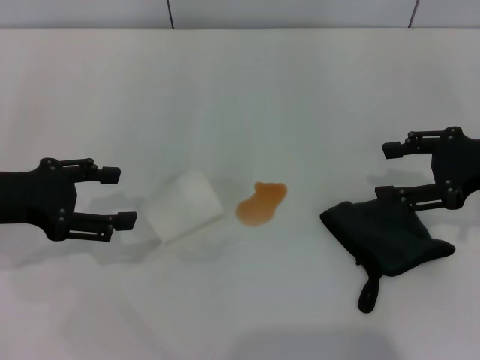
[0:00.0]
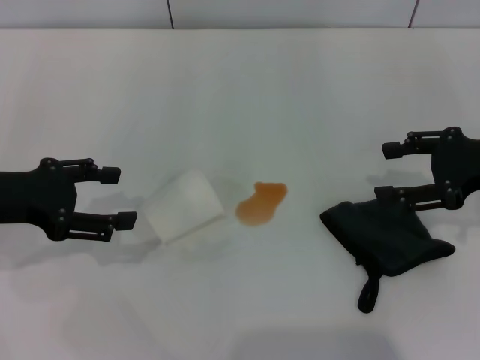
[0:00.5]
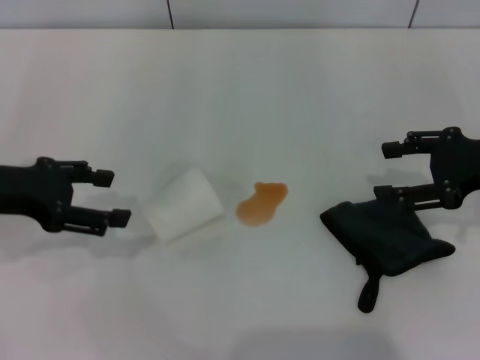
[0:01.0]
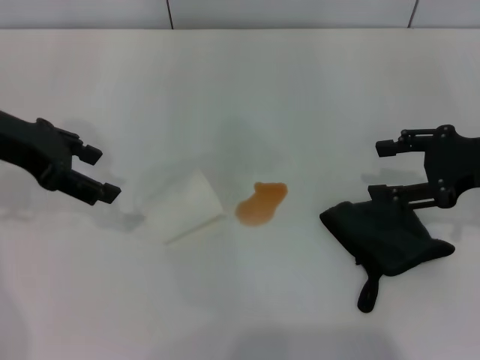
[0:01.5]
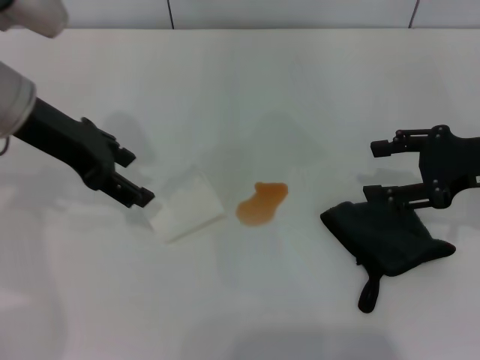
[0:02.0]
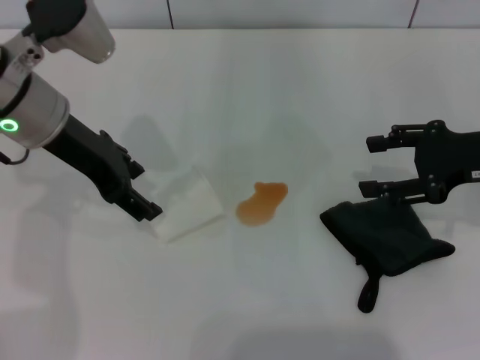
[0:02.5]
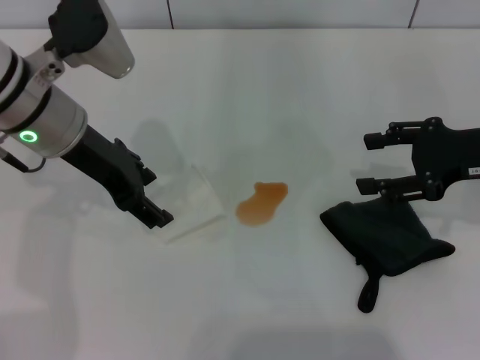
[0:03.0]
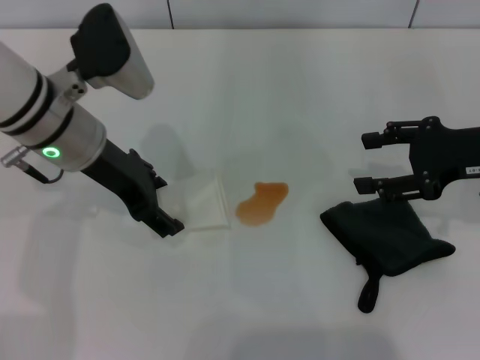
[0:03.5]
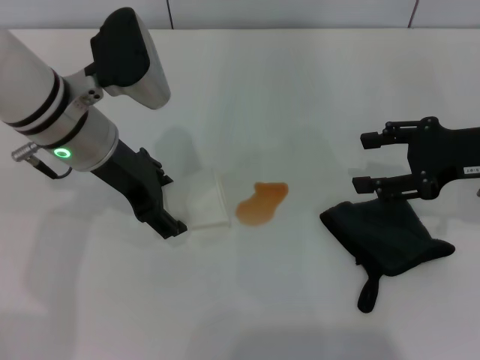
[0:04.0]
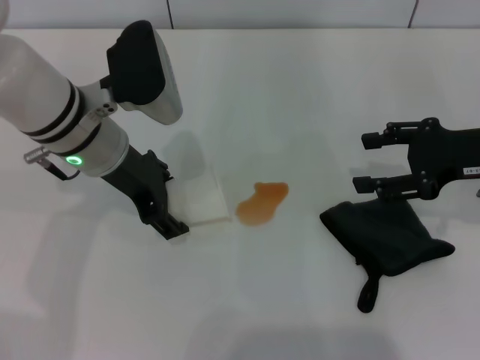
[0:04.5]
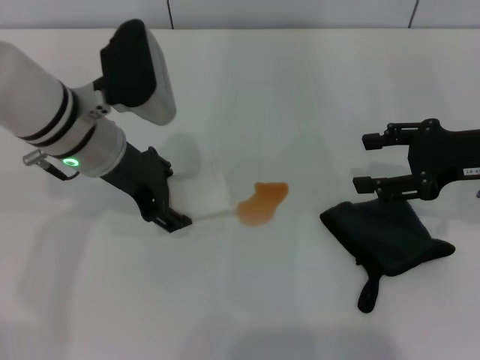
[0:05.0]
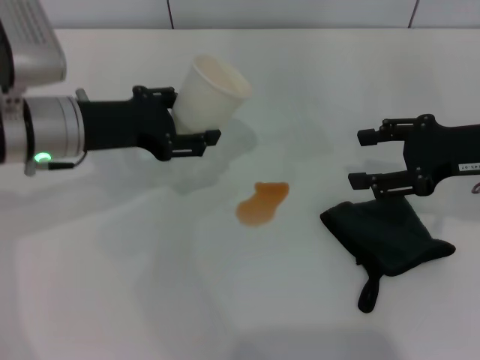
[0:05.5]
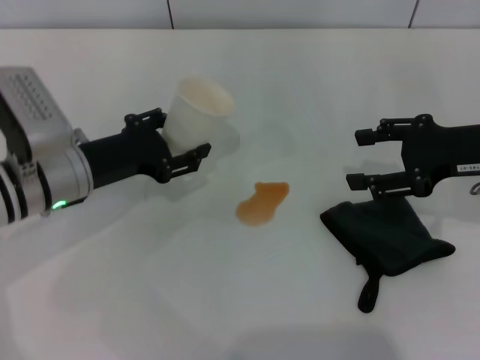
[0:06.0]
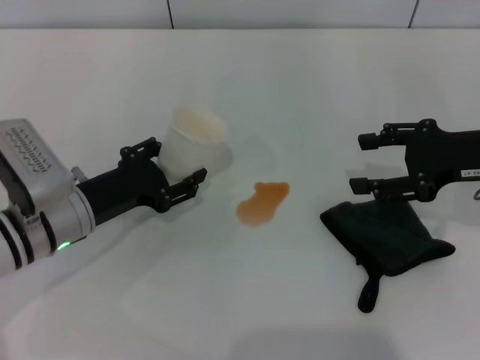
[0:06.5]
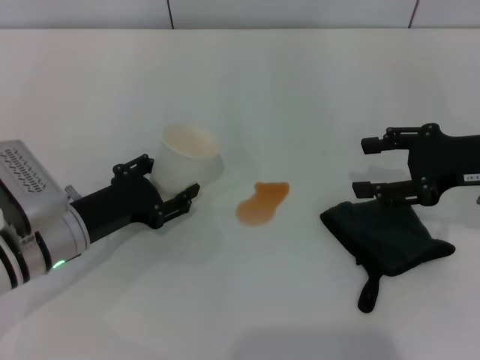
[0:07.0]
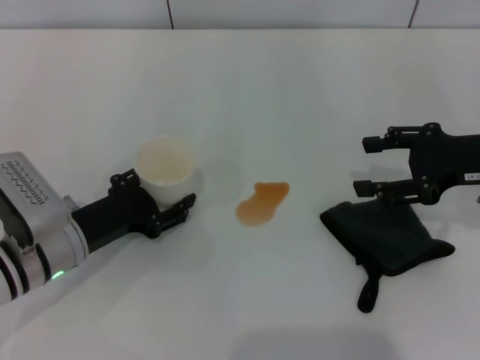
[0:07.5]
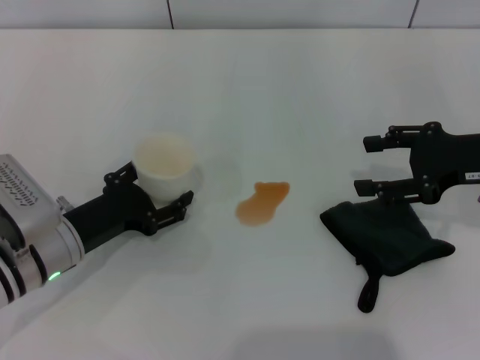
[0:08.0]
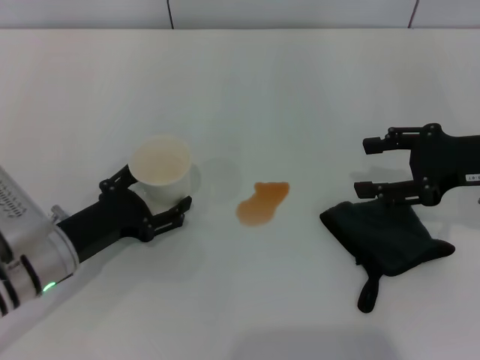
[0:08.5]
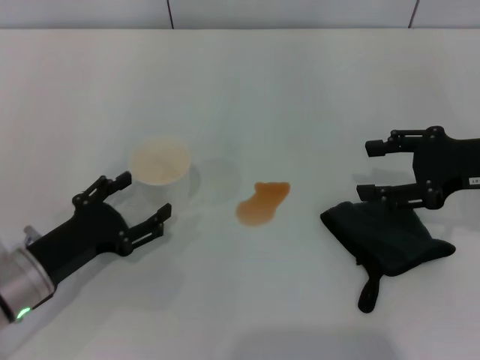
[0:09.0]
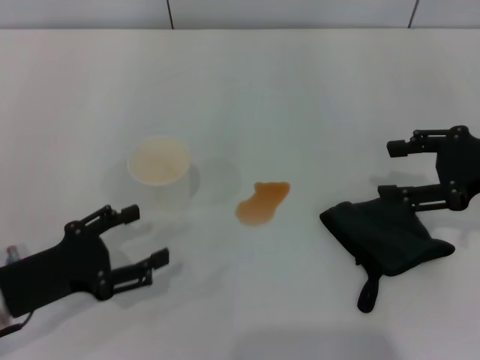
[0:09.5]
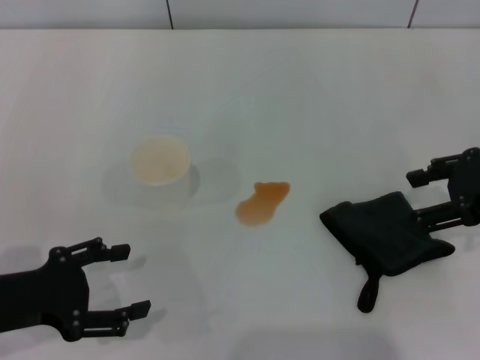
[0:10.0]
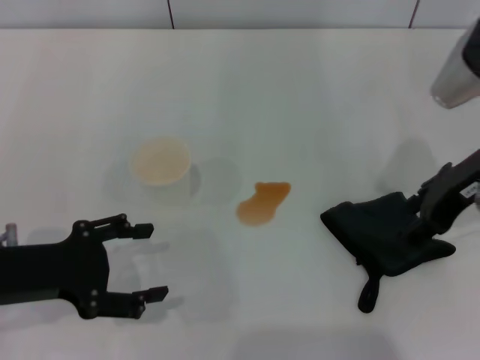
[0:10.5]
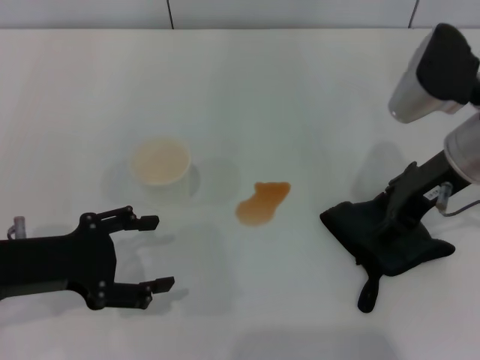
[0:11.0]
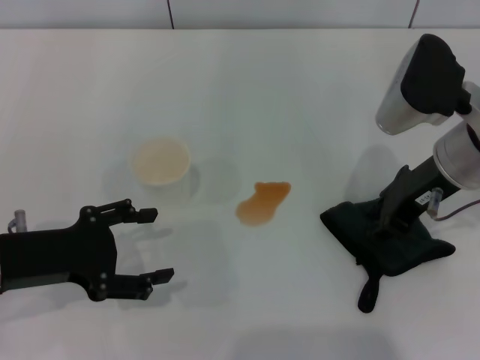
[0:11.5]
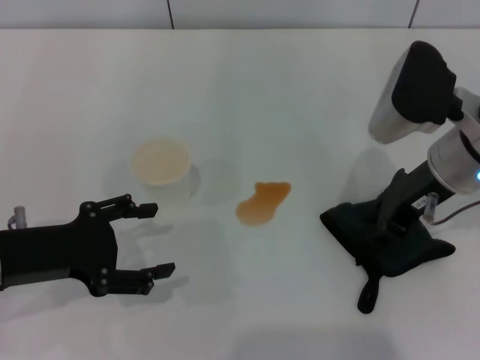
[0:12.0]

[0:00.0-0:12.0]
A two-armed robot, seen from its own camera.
Step, 0:00.0 to 0:04.5: Grasp the paper cup with the left gripper.
Step, 0:05.0 to 0:08.5: Stand the paper cup upright with the left gripper.
0:00.0 to 0:02.0: The left gripper travels to the right, forward and upward by approximately 15 cm.
0:02.0 to 0:04.0: The left gripper goes approximately 5 cm to the right.
0:04.0 to 0:06.0: The left gripper heads downward and to the left, covering roughly 10 cm, and closes up.
0:06.0 to 0:08.0: The left gripper is displaced backward and downward by about 10 cm.
0:08.0 to 0:10.0: The left gripper shifts some 10 cm upward, backward and to the left, and opens.
0:10.0 to 0:12.0: The right gripper is displaced to the left by about 10 cm, and closes up.

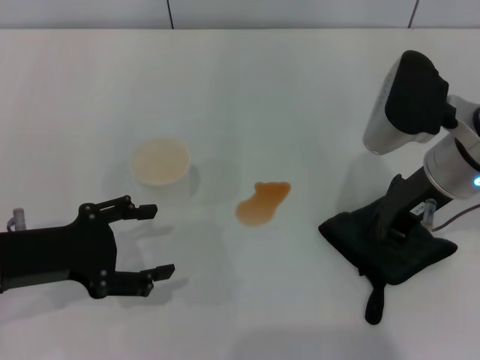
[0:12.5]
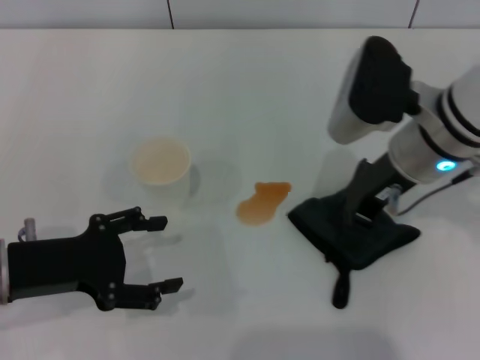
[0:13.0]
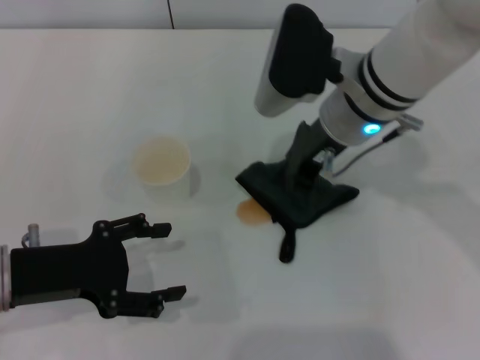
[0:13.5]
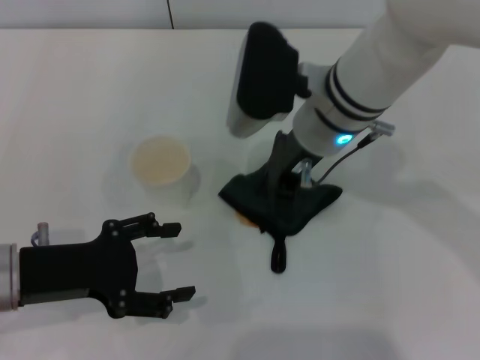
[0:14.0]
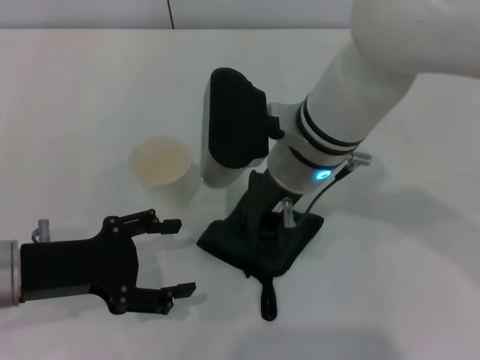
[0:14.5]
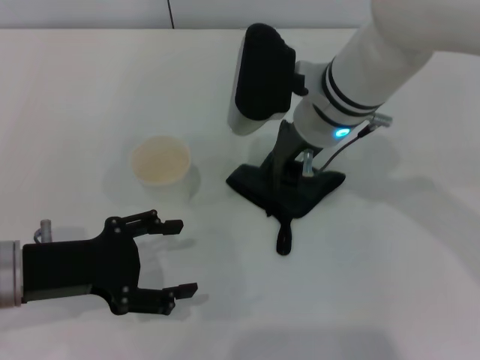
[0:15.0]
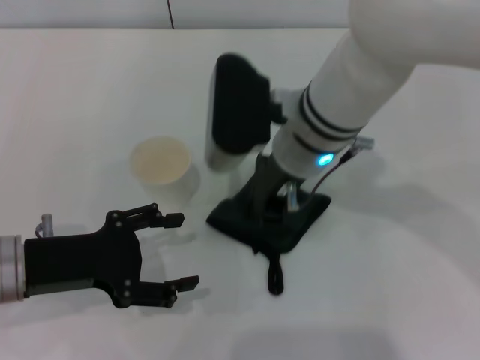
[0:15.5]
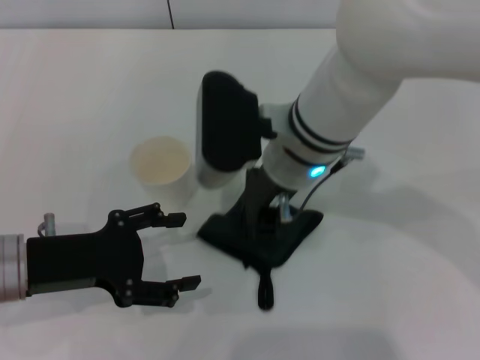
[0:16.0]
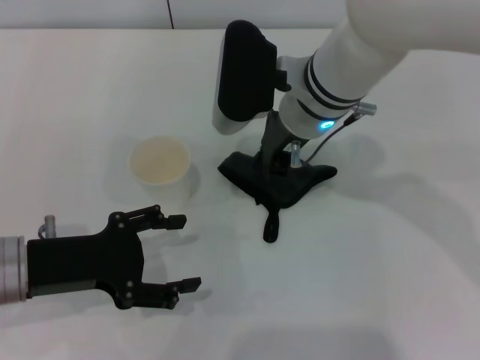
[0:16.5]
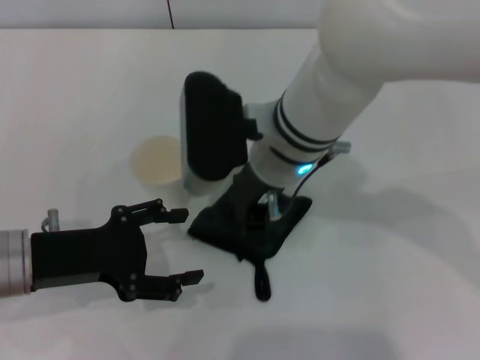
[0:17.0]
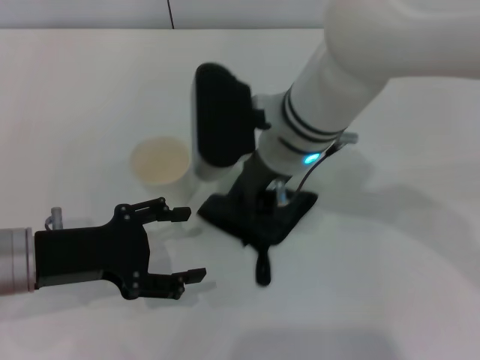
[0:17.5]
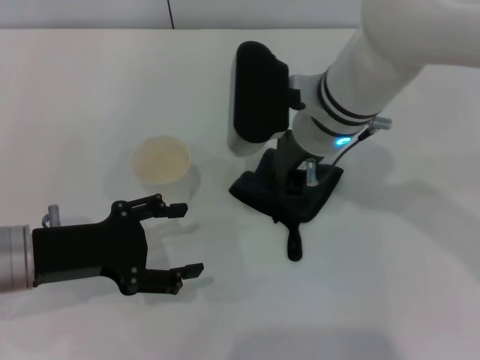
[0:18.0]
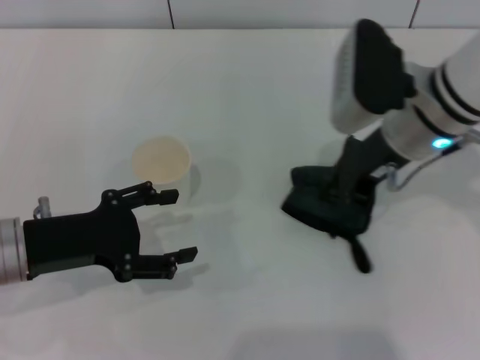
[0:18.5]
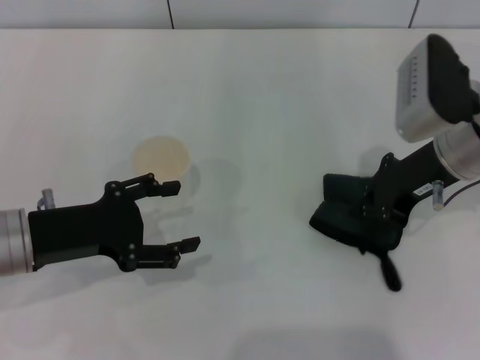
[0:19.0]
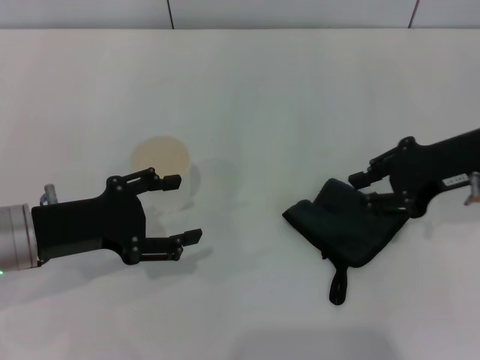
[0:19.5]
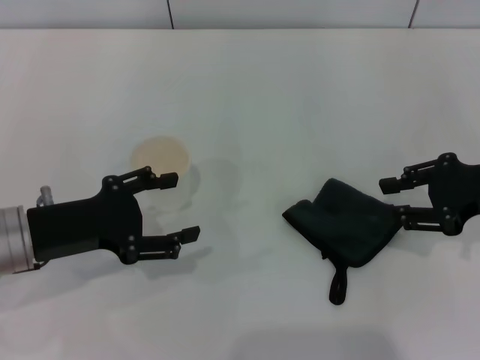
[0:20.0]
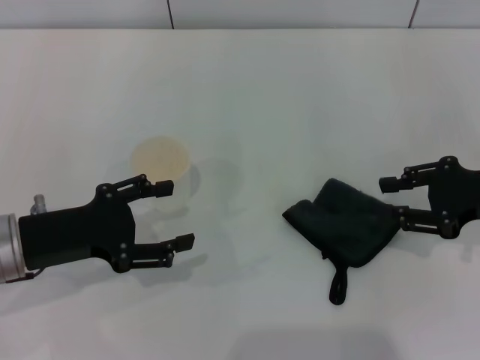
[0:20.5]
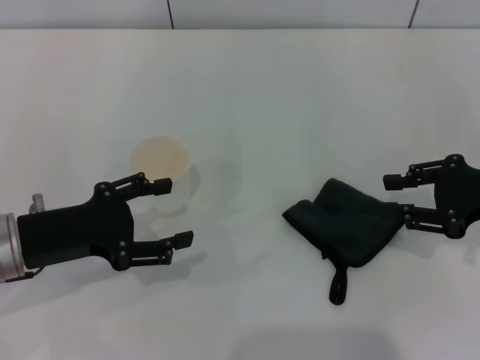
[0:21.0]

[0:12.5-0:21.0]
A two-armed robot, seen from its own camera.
Step, 0:13.0 to 0:18.5: Wipe the stains off the table with the right gripper.
Step, 0:19.0 to 0:19.5: Place the rag on the table with the right gripper.
0:12.5 to 0:14.5: The right gripper shifts roughly 15 cm to the left.
0:14.5 to 0:16.5: The right gripper goes forward and backward, some 5 cm each way, reversing 2 times.
0:16.5 to 0:19.0: The right gripper shifts some 15 cm to the right.
0:19.0 to 0:21.0: The right gripper travels to the right and backward by roughly 10 cm, and opens its fingers.

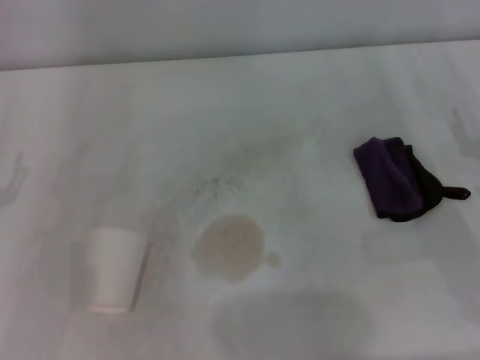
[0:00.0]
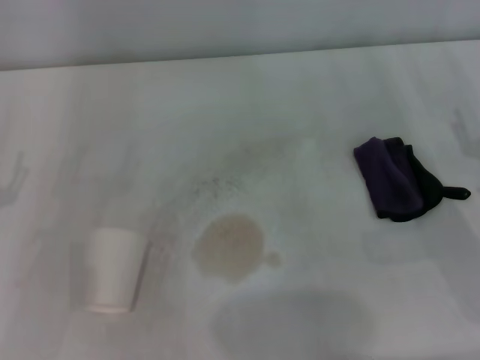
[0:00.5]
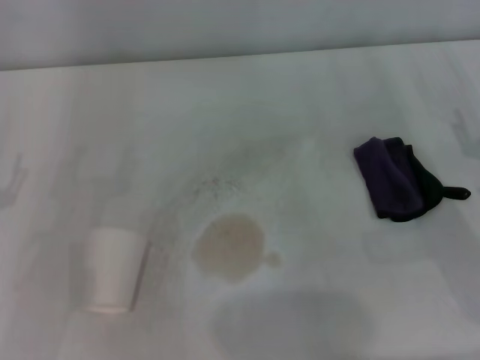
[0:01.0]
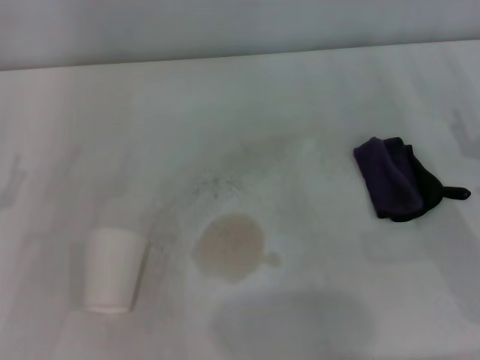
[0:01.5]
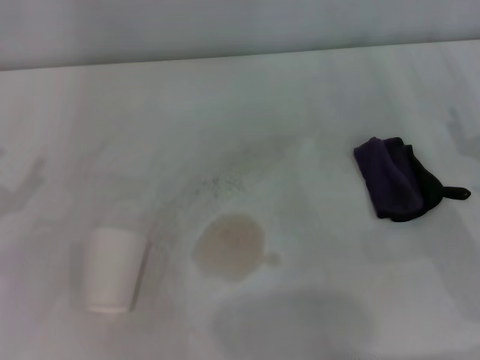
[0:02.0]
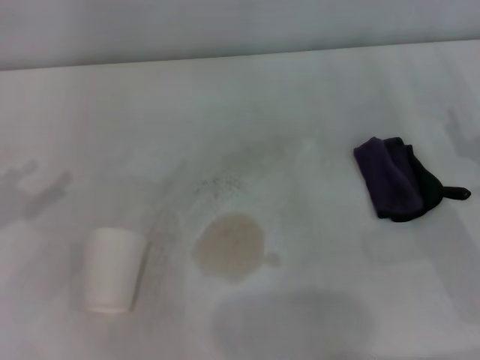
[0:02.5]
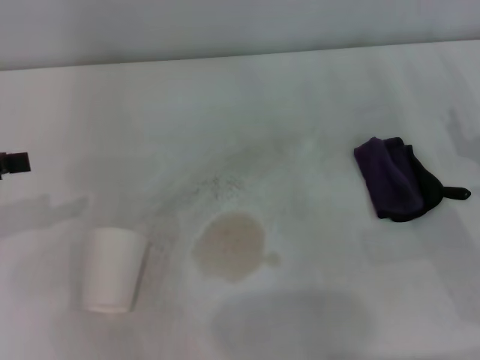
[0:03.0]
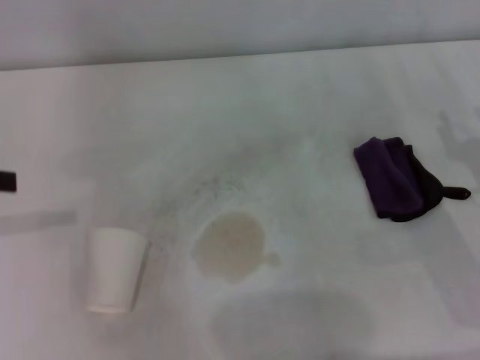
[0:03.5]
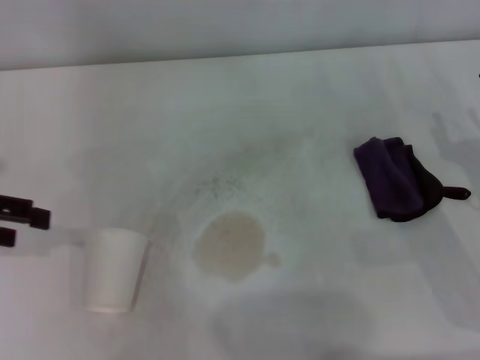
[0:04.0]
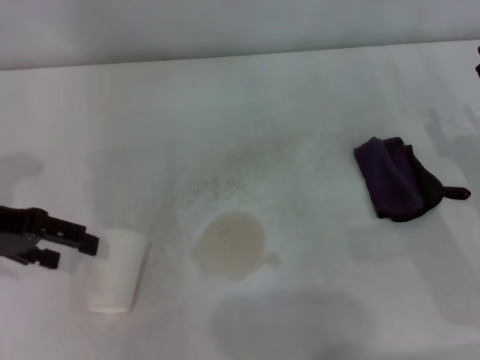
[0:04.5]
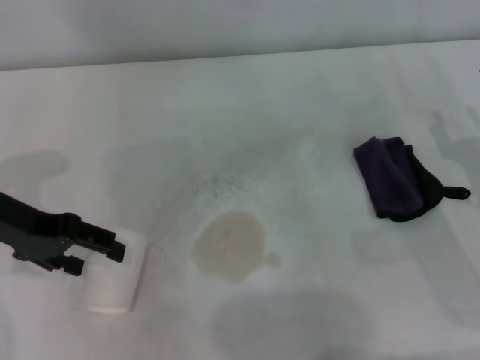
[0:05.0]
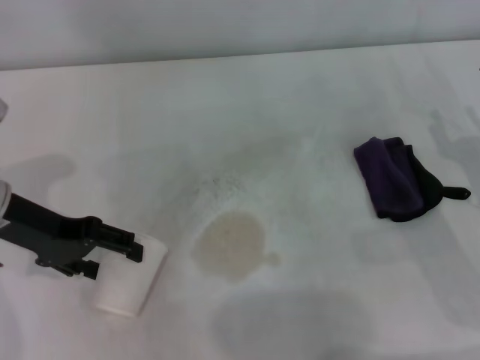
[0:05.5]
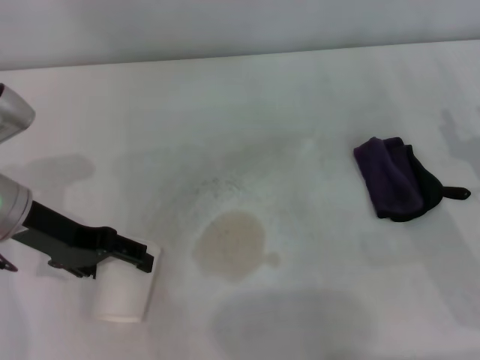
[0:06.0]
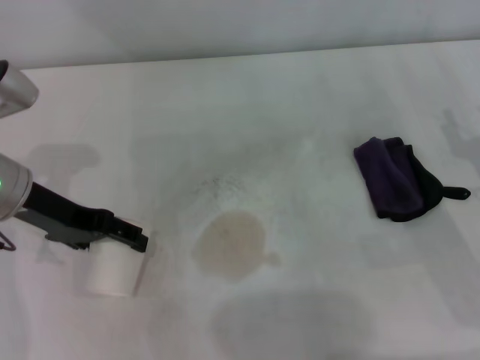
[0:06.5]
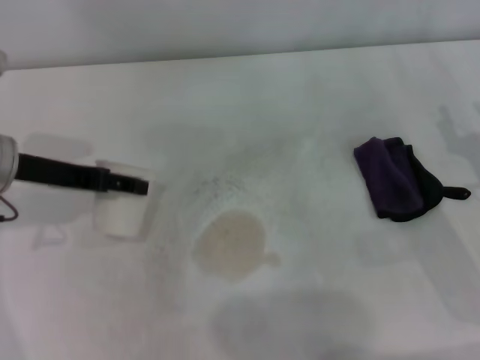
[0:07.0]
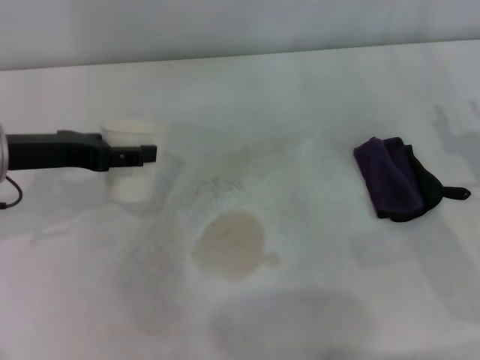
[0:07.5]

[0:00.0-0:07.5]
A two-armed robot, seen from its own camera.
Step, 0:00.0 to 0:06.5: Grasp the paper cup with the left gripper.
0:02.0 to 0:04.0: The left gripper travels upward and forward by some 15 cm.
0:04.0 to 0:05.5: The left gripper goes approximately 10 cm to the right and downward.
0:05.5 to 0:07.5: The left gripper closes its fingers.
